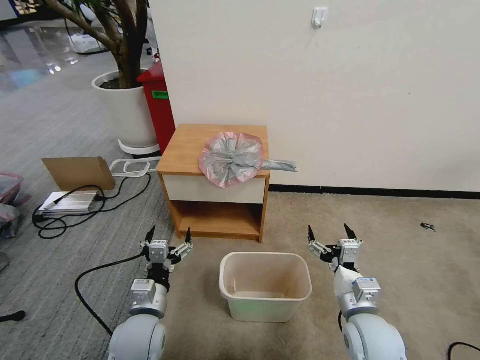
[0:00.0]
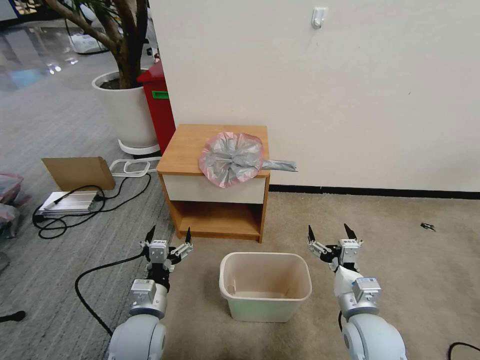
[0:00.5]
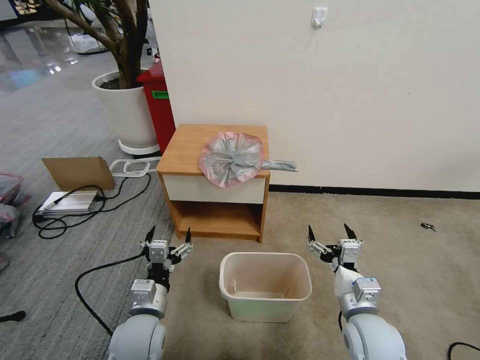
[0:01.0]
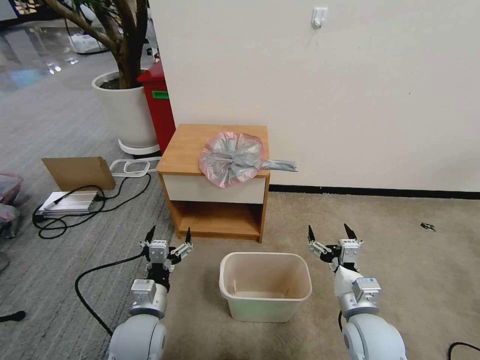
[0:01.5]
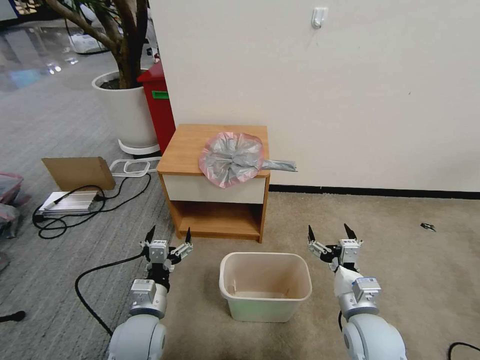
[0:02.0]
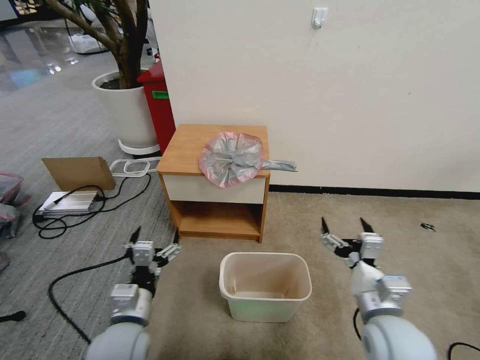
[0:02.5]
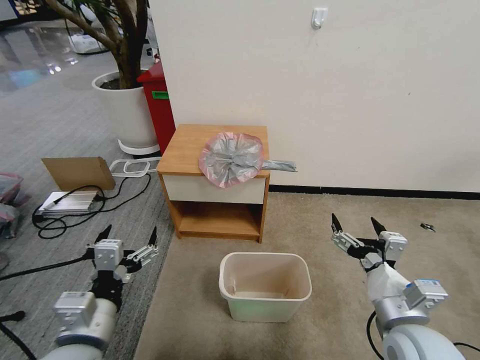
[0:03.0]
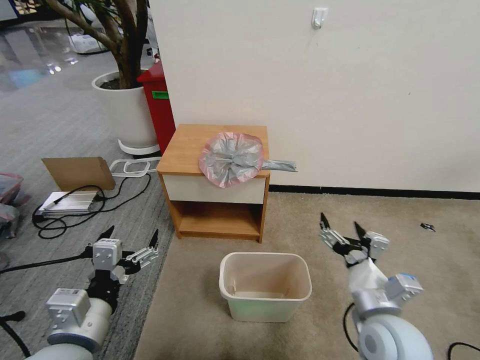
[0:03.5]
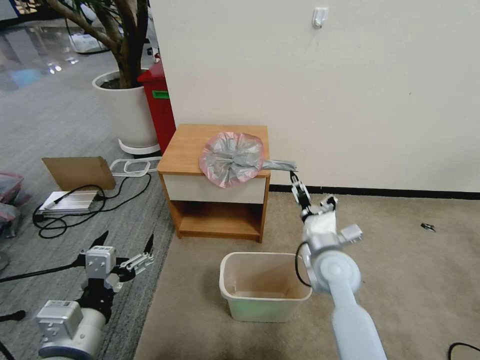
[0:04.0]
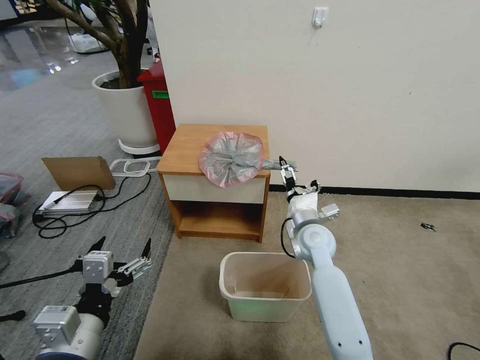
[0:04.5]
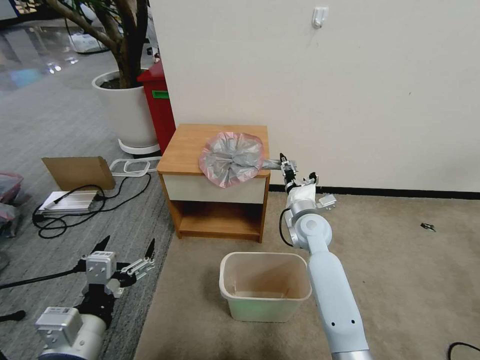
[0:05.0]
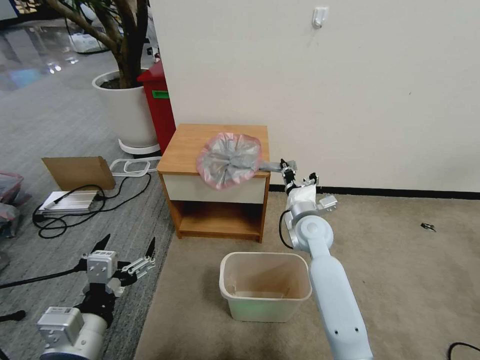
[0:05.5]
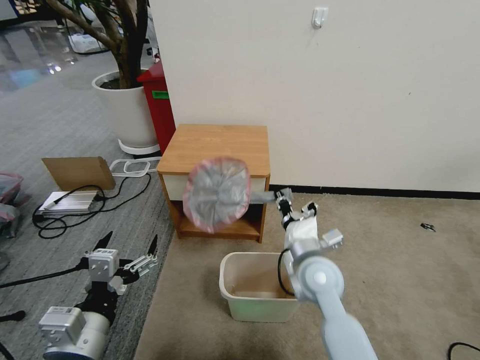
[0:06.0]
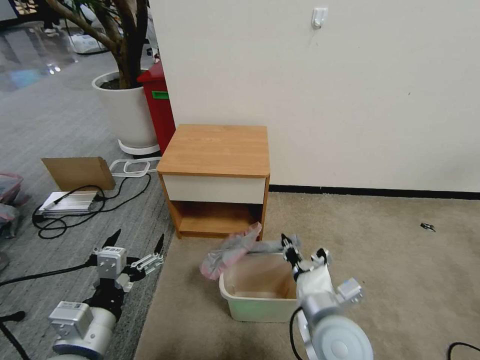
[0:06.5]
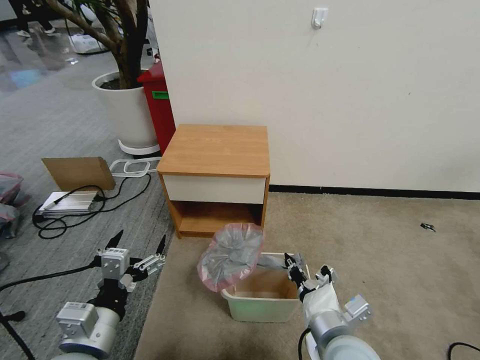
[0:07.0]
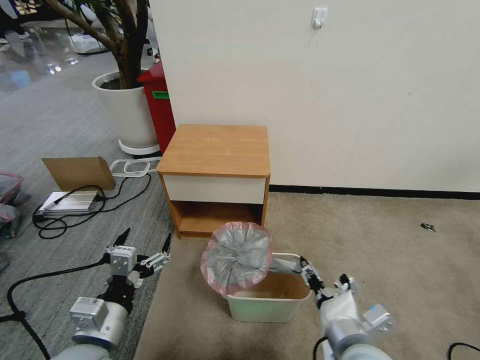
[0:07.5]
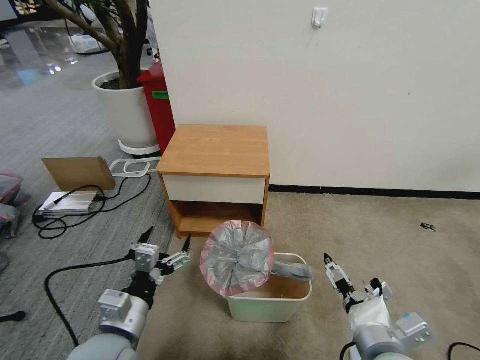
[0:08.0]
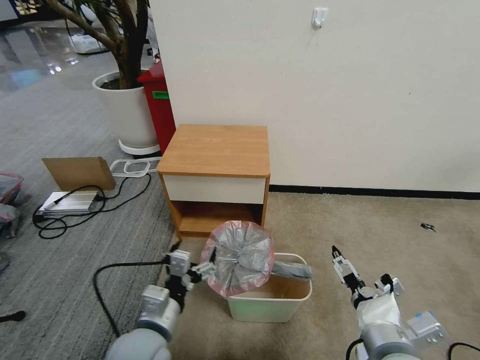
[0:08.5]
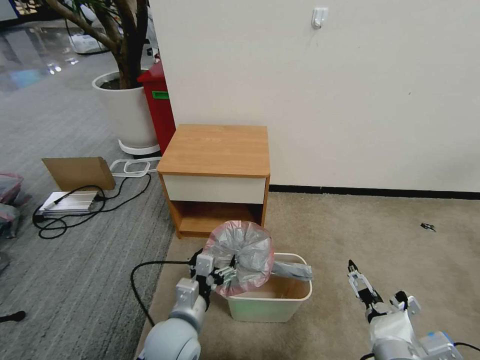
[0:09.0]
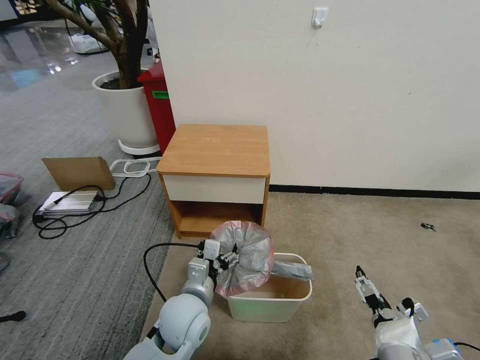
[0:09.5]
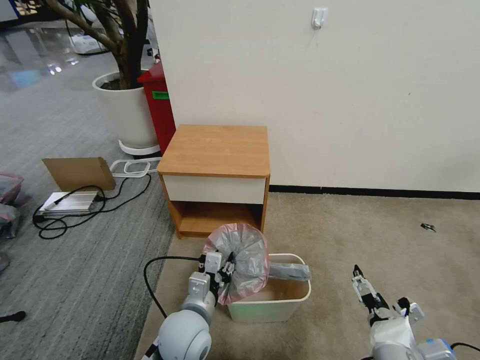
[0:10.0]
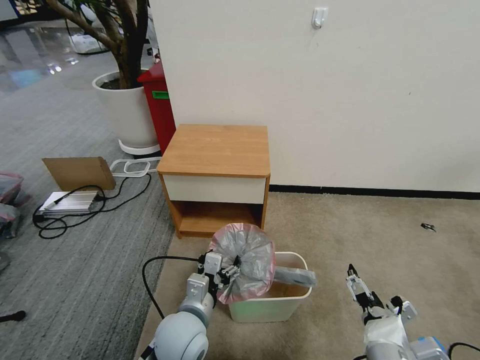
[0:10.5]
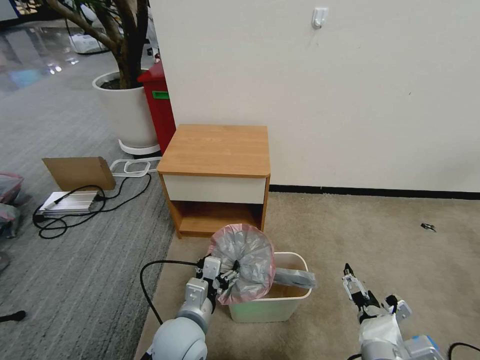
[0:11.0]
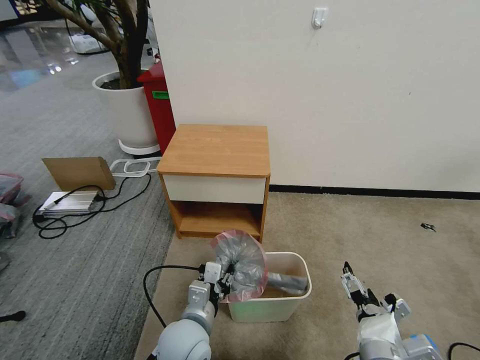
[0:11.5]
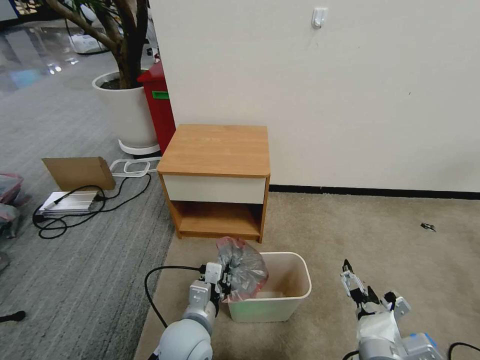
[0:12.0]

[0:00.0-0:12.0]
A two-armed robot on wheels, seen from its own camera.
Task of the whole recording: Pick up the garbage bag from the table and place it over the trash can.
0:02.0 to 0:04.0: The left gripper goes some 15 cm upward and backward. Meanwhile the right gripper goes roughly 10 cm forward.
0:04.0 to 0:06.0: The right gripper moves some 10 cm forward and comes back, and closes up.
0:06.0 to 0:08.0: The left gripper heads downward, covering about 5 cm, while the right gripper is displaced backward and to the right by roughly 20 cm, and opens up.
0:08.0 to 0:10.0: The left gripper travels to the right, downward and forward by some 15 cm, and closes up.
0:10.0 to 0:12.0: The left gripper opens, then closes once more.

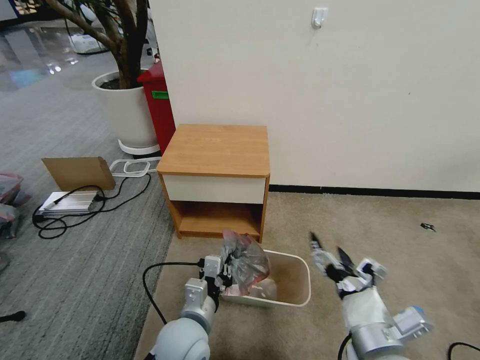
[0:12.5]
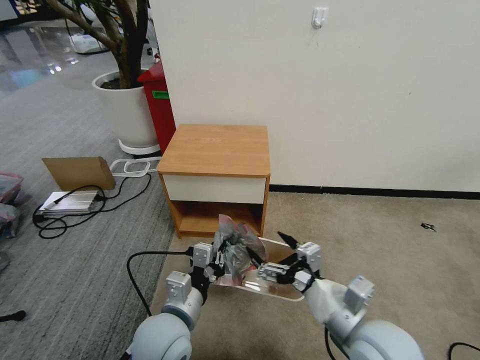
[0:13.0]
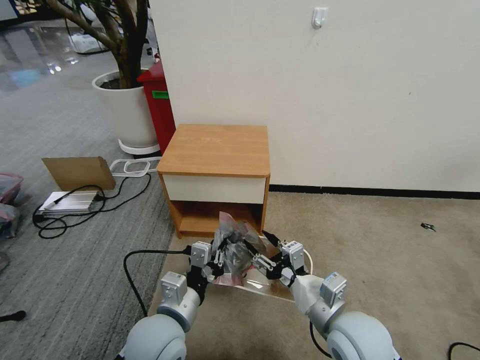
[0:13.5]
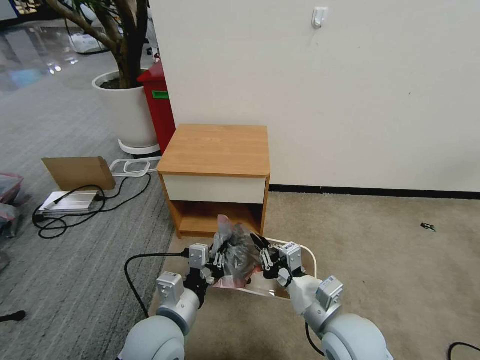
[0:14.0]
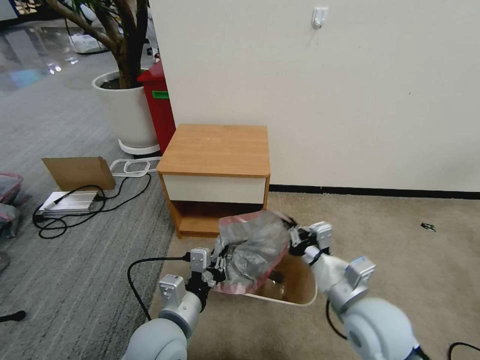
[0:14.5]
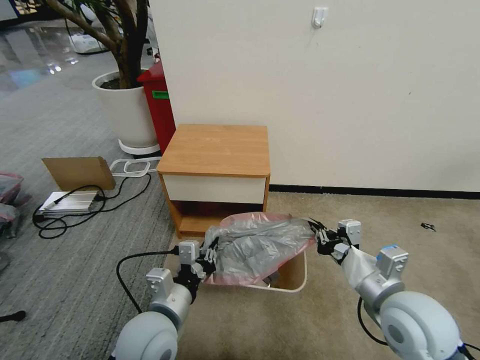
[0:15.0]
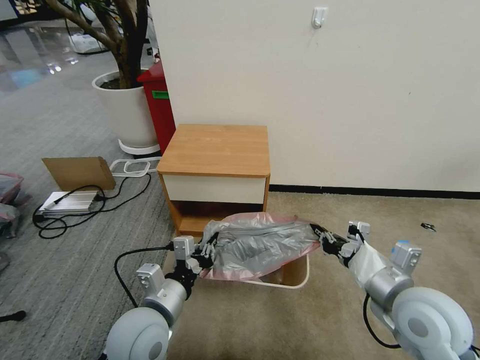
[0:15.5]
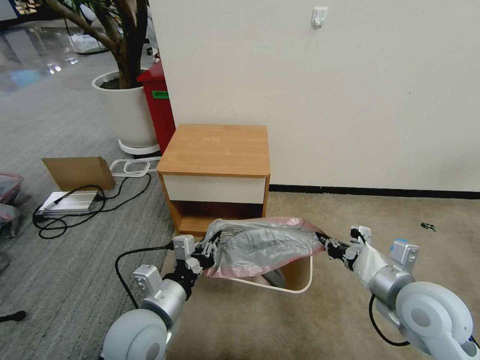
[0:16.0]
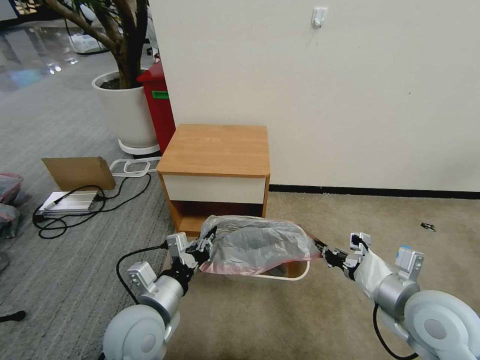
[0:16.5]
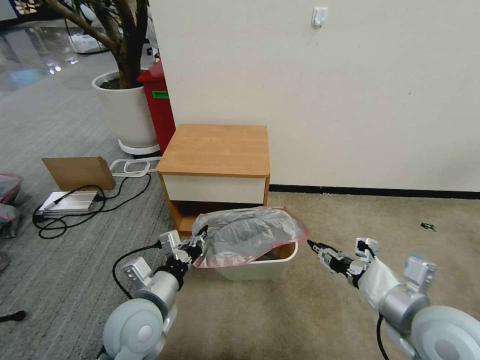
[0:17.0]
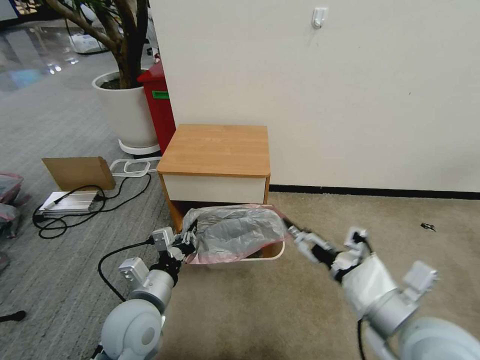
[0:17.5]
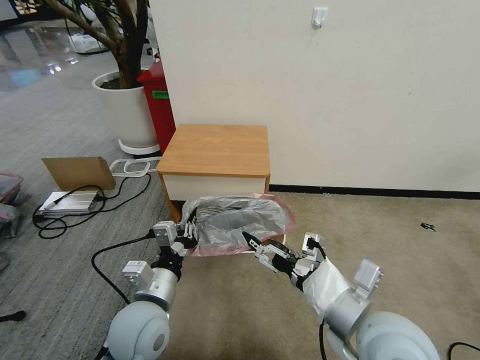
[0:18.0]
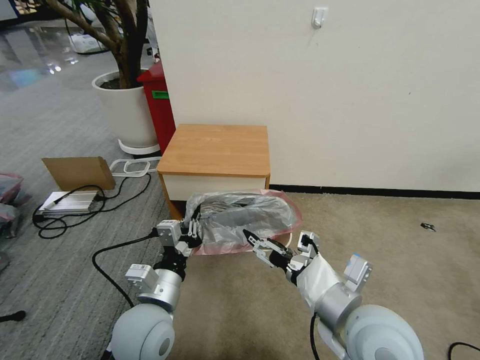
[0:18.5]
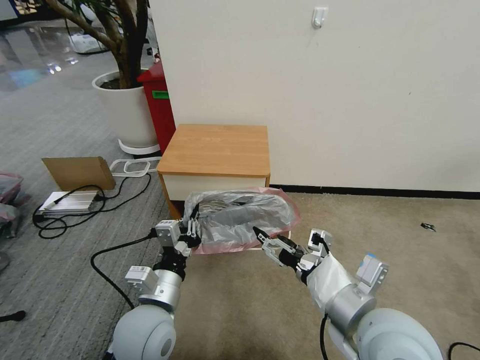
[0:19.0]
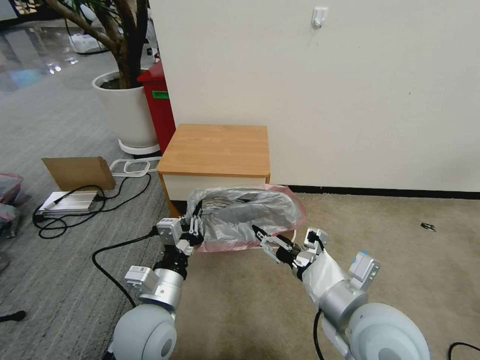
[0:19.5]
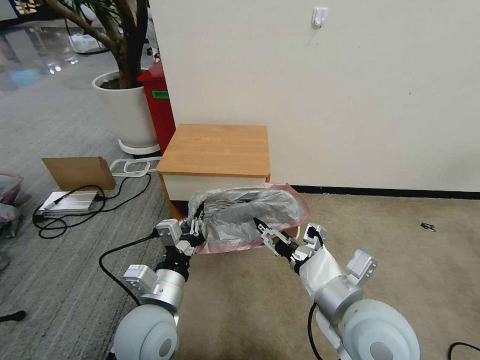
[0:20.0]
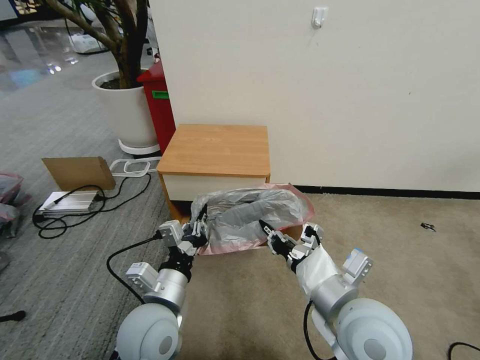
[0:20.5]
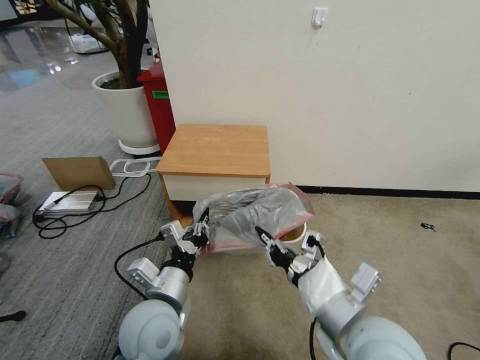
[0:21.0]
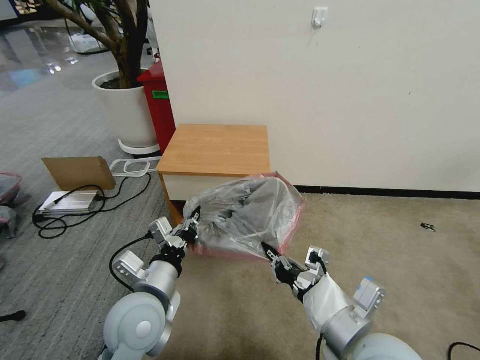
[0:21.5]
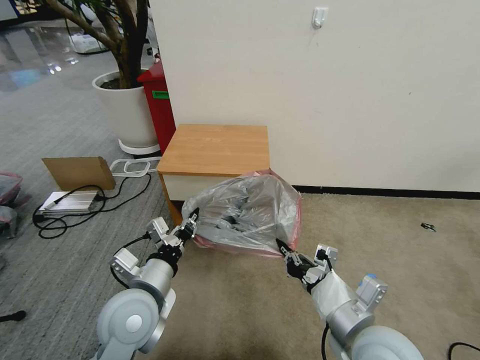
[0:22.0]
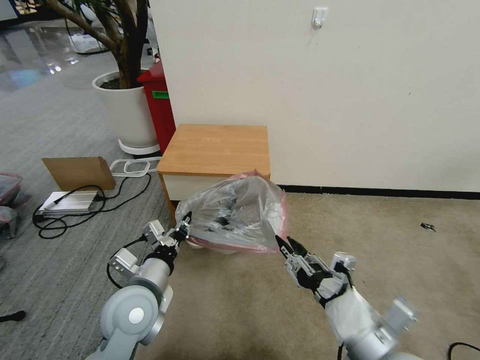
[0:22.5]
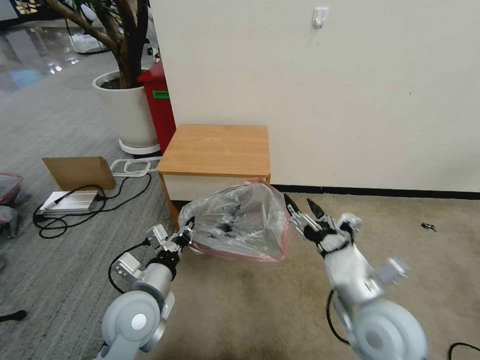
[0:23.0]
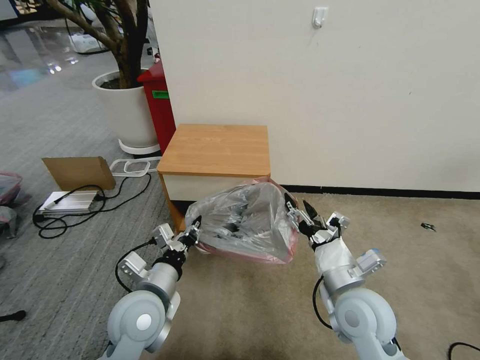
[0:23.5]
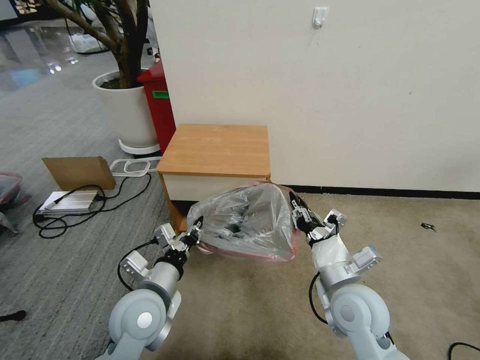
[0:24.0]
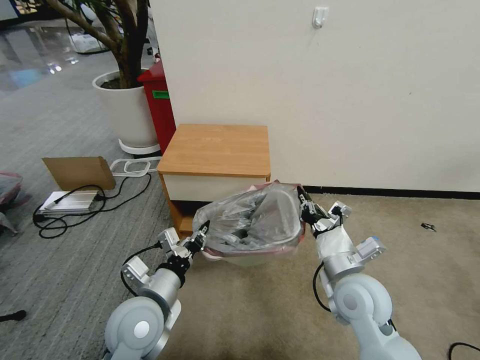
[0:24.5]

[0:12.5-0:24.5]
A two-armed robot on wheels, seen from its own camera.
Task of the whole recording: Pick up the garbage bag from the table and place it over the trash can.
0:12.5 to 0:14.5: The left gripper shifts by roughly 5 cm. Meanwhile the right gripper travels forward by about 10 cm, and closes.
0:14.5 to 0:16.5: The right gripper travels to the right by about 10 cm.
0:16.5 to 0:18.5: The right gripper heads to the left, covering about 10 cm, and opens up.
0:18.5 to 0:20.5: The right gripper closes.
0:20.5 to 0:22.5: The left gripper changes place by approximately 5 cm. The right gripper moves backward, roughly 5 cm.
0:22.5 to 0:24.5: The right gripper is displaced forward by some 15 cm, and closes up.

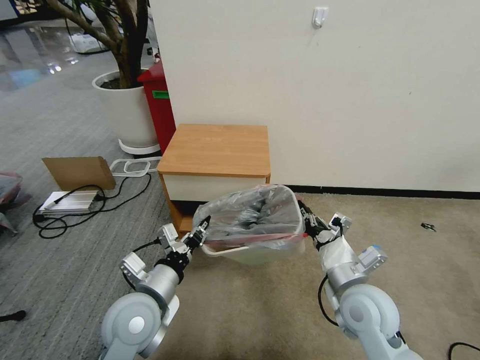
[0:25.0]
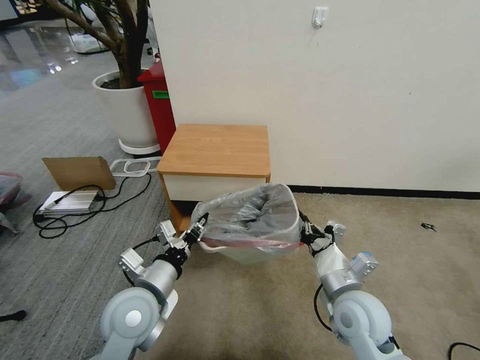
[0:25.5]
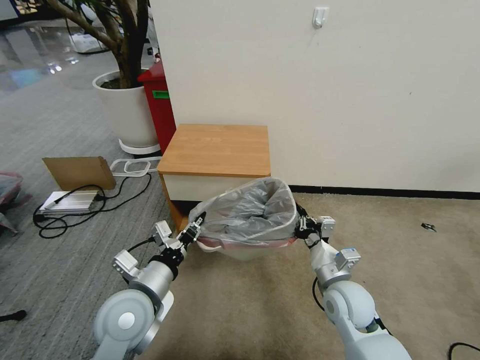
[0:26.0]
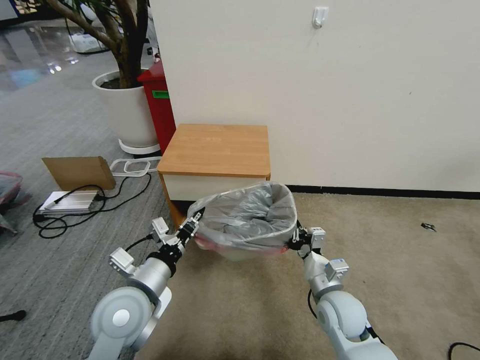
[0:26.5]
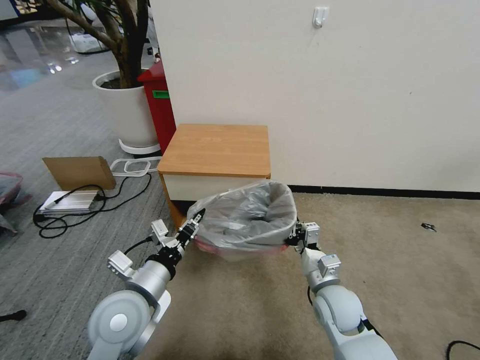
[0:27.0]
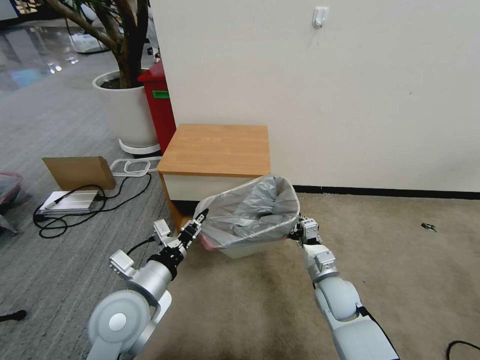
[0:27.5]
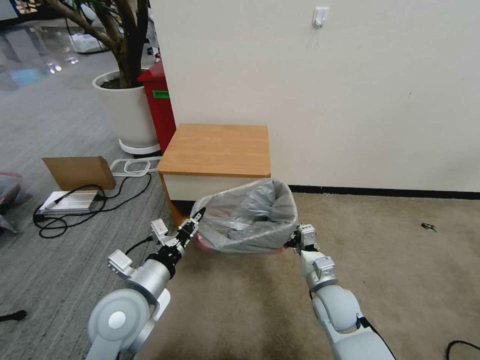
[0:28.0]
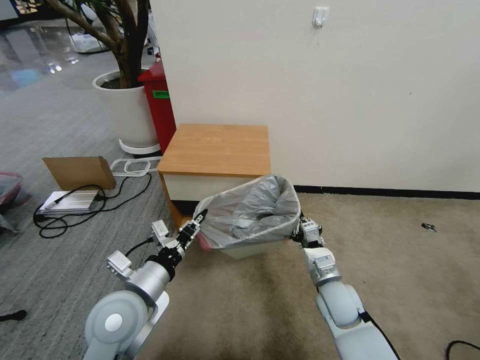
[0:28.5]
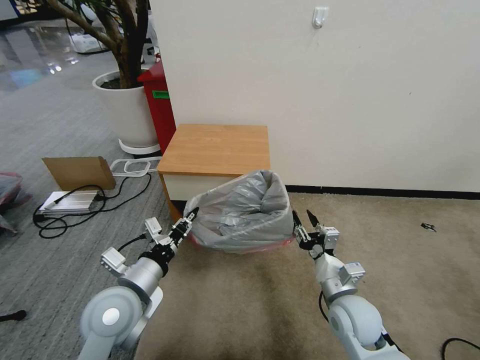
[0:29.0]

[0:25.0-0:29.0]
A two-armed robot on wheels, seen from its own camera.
Task of the whole recording: Pick up the garbage bag from the table and place it over the trash can.
0:25.0 to 0:27.0: The right gripper shifts some 10 cm downward.
0:27.0 to 0:29.0: The right gripper opens its fingers.
